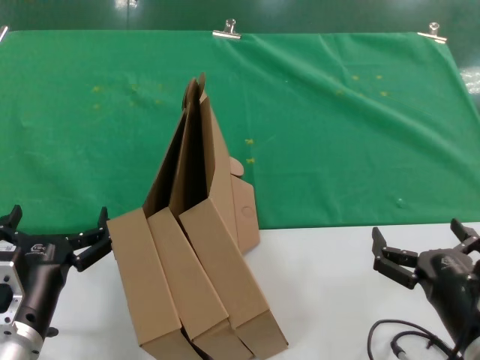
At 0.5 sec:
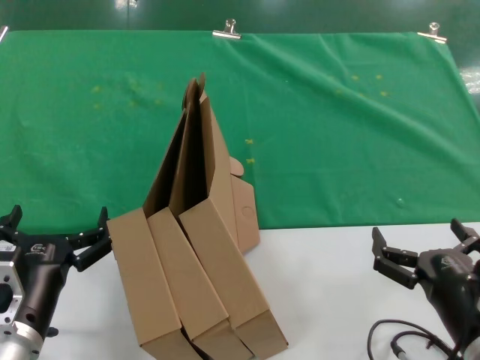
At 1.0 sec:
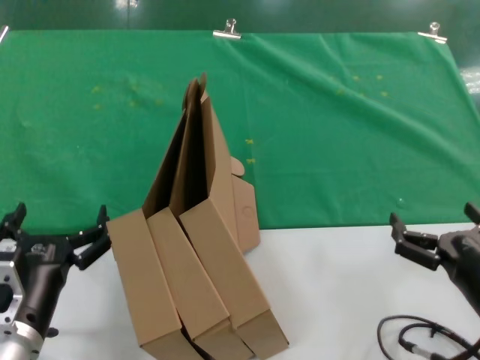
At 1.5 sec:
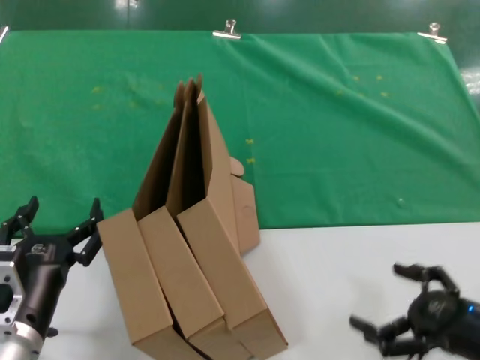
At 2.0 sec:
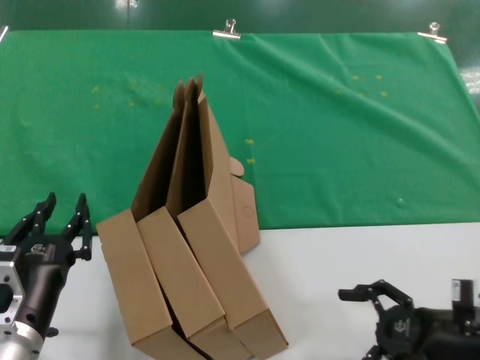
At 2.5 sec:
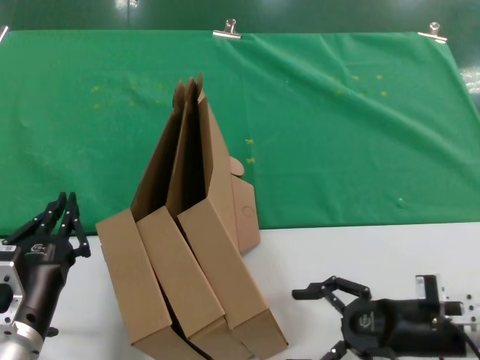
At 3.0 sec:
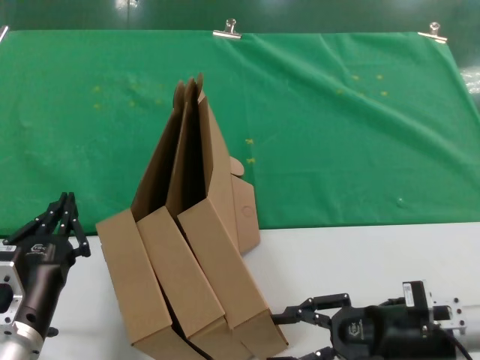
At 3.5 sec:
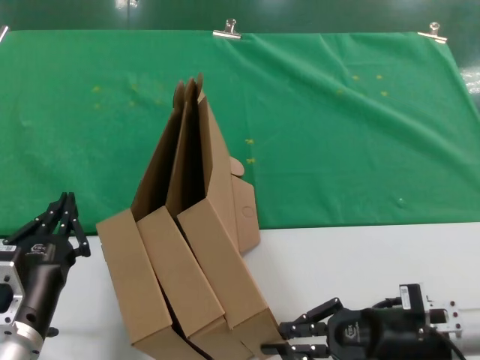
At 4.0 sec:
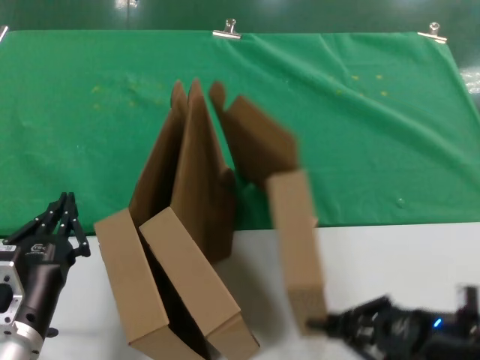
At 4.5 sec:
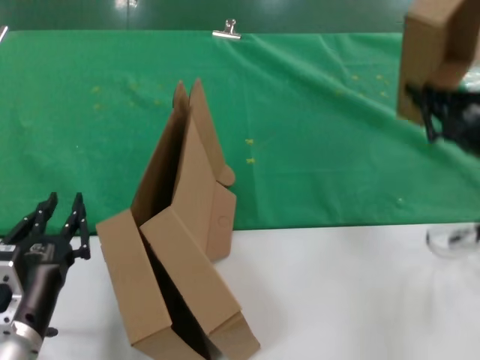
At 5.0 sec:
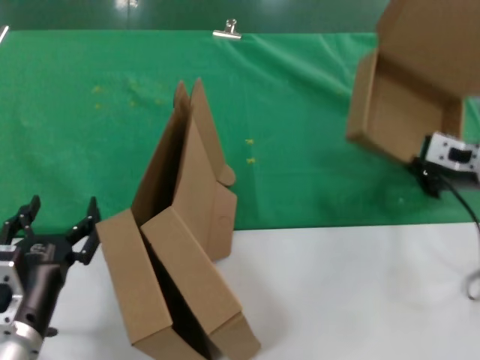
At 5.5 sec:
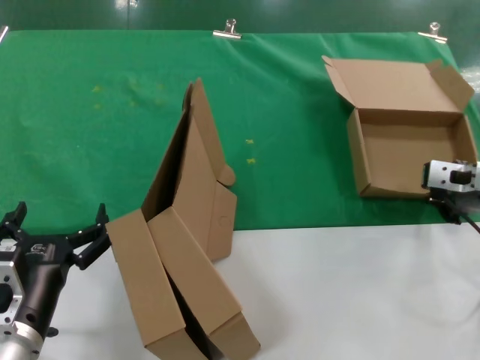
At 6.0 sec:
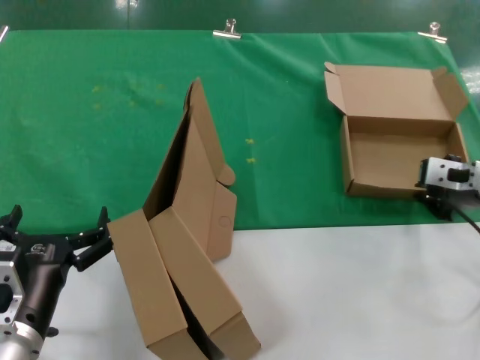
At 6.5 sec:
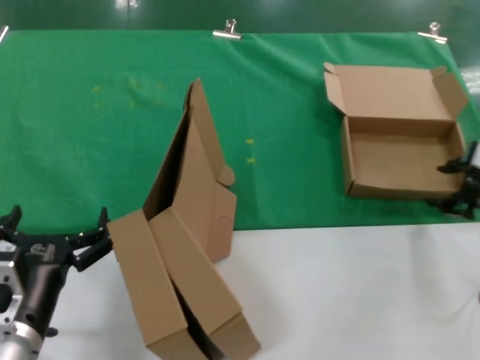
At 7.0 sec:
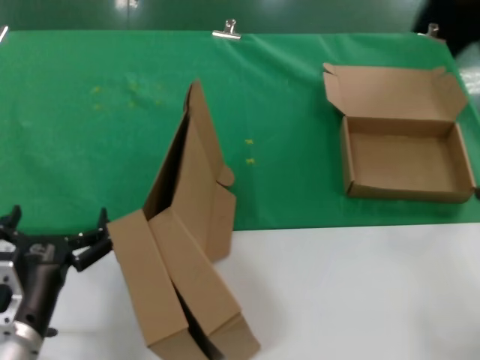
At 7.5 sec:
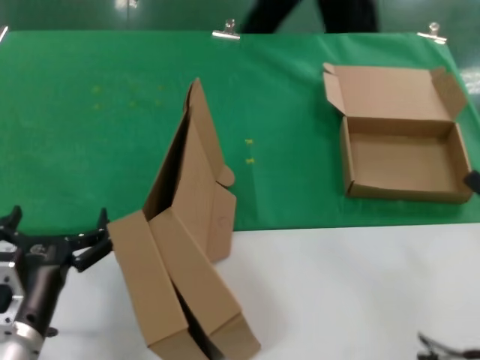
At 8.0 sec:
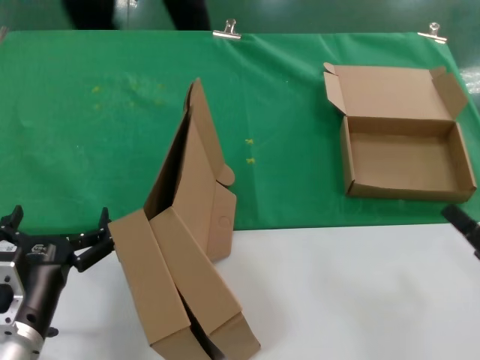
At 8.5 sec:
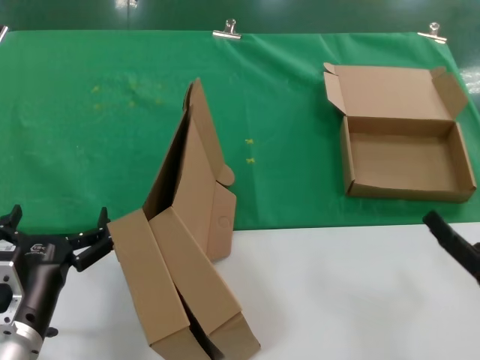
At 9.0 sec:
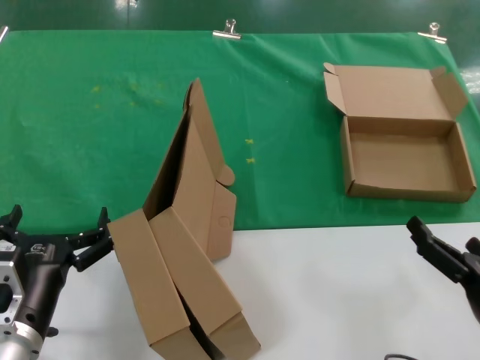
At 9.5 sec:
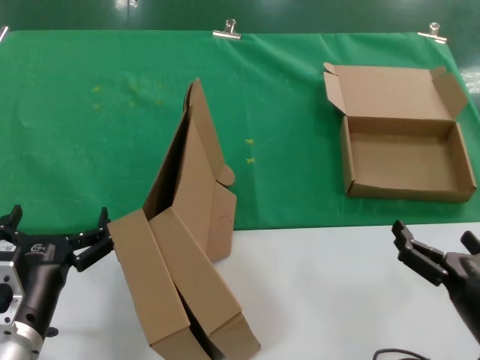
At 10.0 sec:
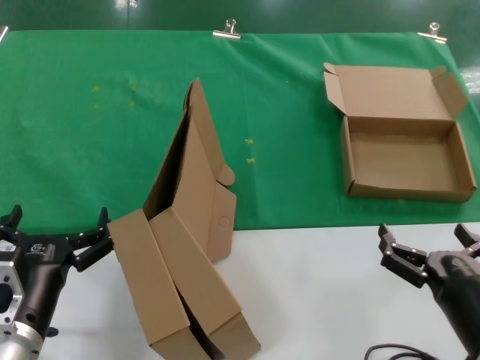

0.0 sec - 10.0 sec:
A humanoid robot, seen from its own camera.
Task of the whole recording: pick up the paper box and put it at the back.
Step, 0.0 sec - 3.5 sec: Grasp the paper box.
Step, 4.0 sec - 5.5 sec: Place the paper box on the table.
0.0 sec - 2.0 sec: The right hand shifts roughly 15 cm to the right and forward.
4.0 sec - 6.0 sec: The right hand is displaced forward and upward by about 20 cm.
6.0 sec - 8.0 sec: The right hand travels backward by about 25 cm.
8.0 sec - 10.0 sec: The right hand heads to the left, covering some 10 cm.
